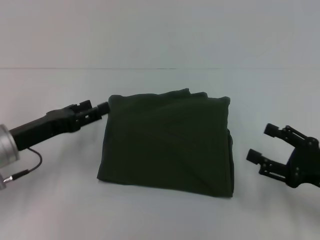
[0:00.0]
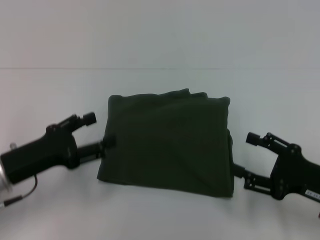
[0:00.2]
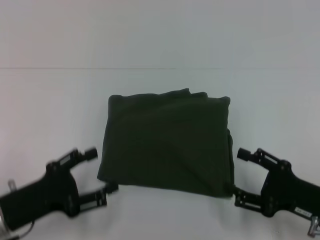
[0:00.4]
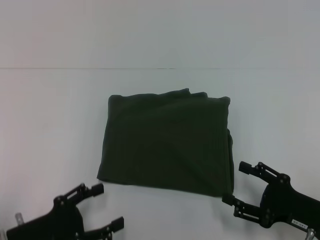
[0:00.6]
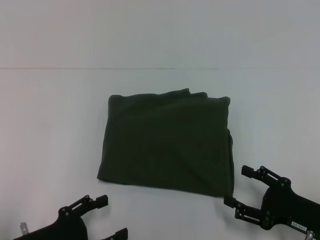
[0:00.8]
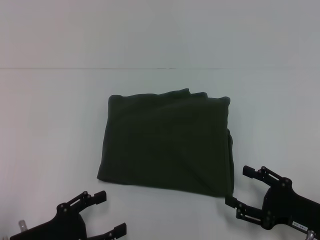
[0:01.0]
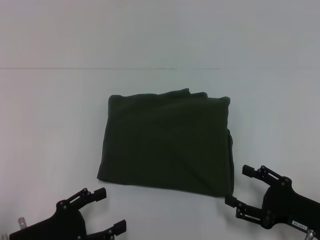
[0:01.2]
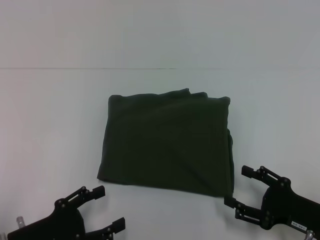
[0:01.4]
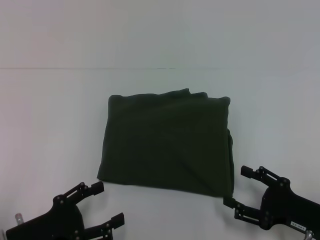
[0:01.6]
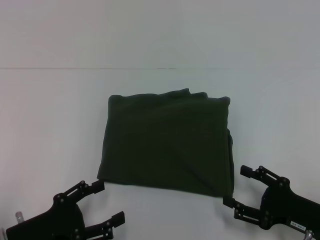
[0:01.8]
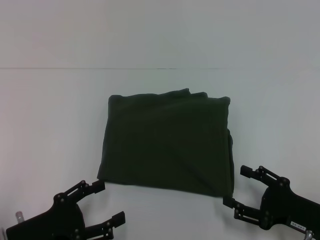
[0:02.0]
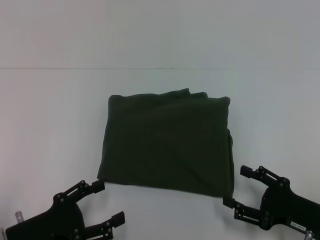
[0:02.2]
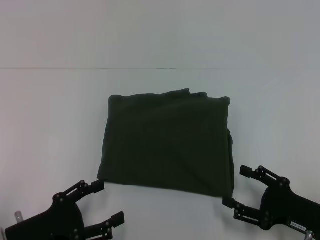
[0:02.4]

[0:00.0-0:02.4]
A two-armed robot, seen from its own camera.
0:00.0 to 0:01.2: The left gripper shifts roughly 15 cm backward and downward. Meanwhile the right gripper ends up some 5 cm from where it was.
0:01.2 to 0:02.4: The two grippers keep their place.
